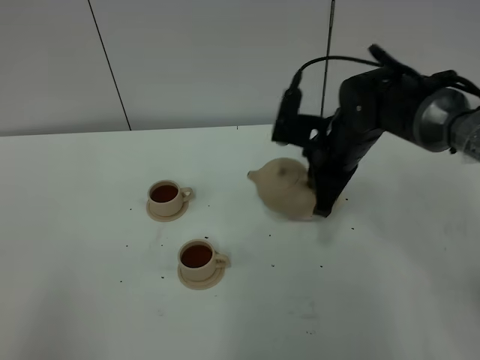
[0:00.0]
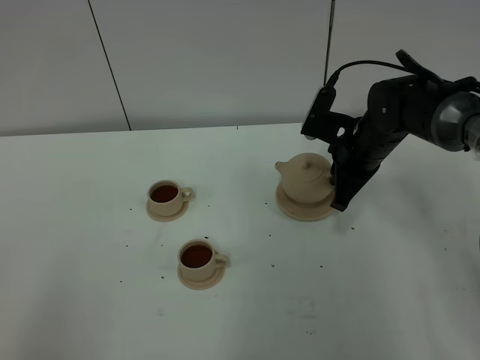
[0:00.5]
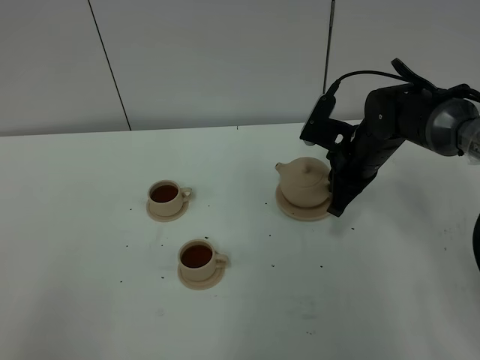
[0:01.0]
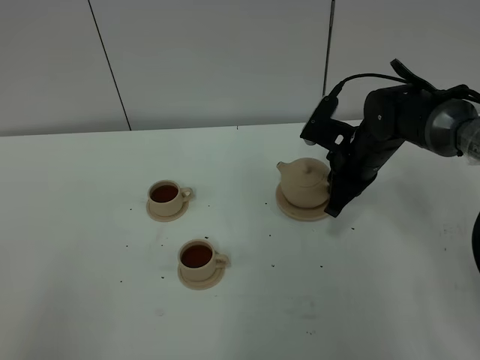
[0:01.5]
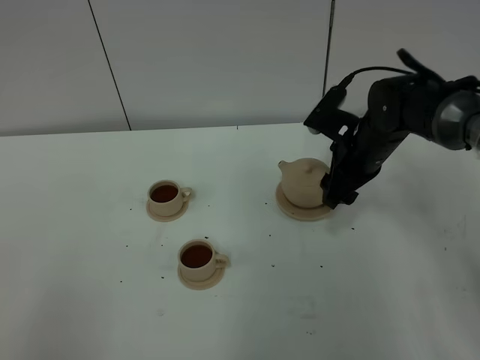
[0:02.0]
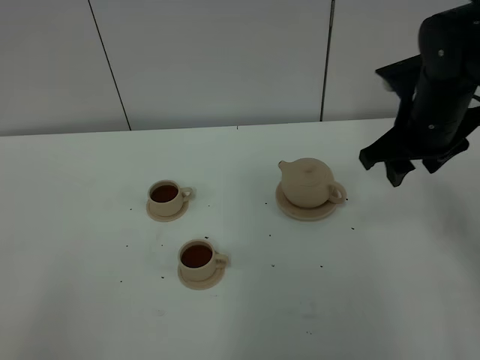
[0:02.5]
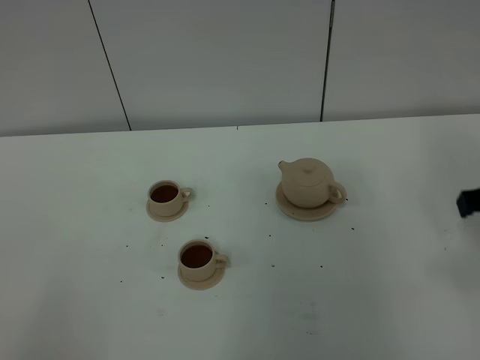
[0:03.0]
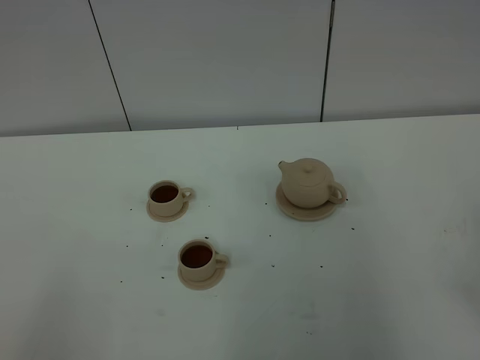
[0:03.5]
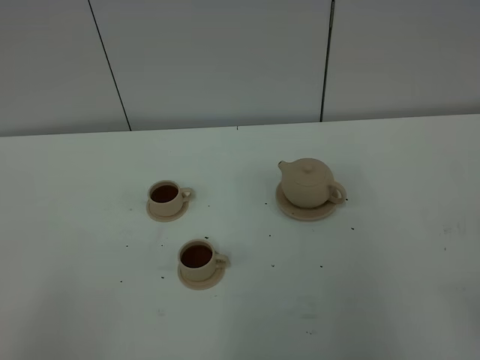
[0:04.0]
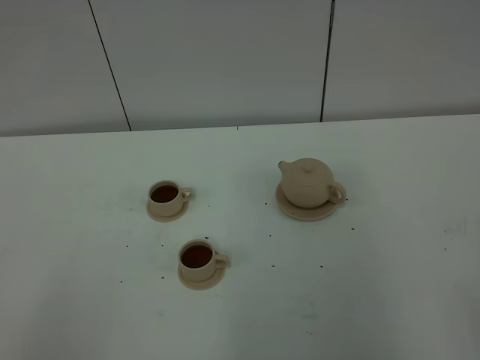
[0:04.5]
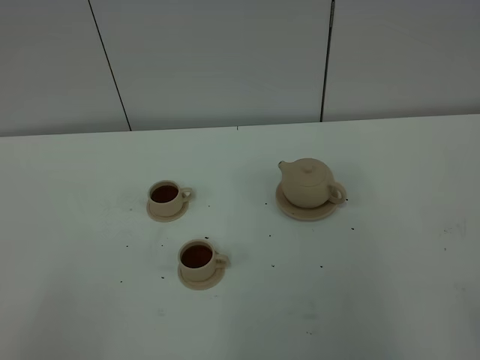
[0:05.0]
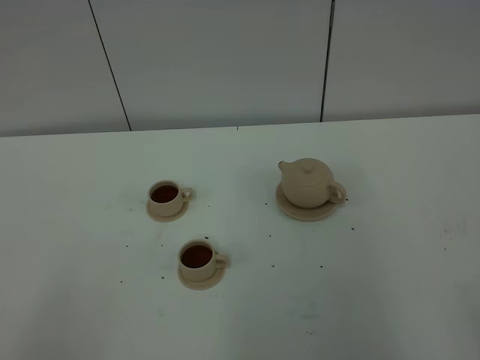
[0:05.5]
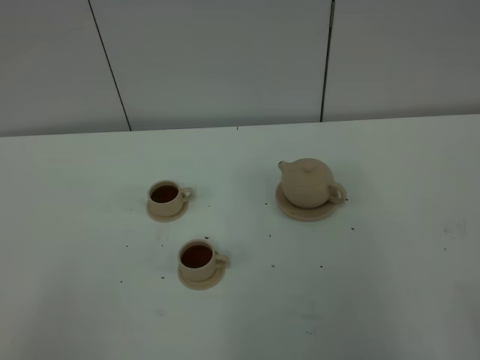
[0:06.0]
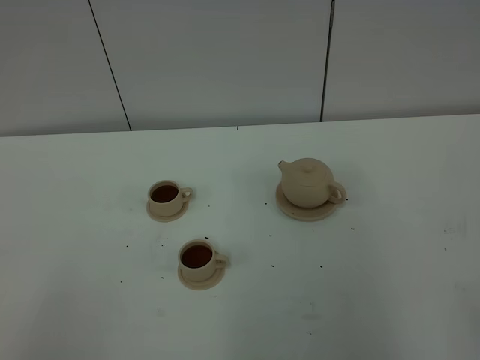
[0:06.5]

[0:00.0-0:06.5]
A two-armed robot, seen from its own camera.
Task of the whole recording: grasp the brown teapot and pour the tea into the two brown teacups one by one, put the brown teapot back in its original place.
0:00.0 to 0:02.0: The right gripper opens.
0:02.0 to 0:04.5: The right gripper goes roughly 40 cm backward.
